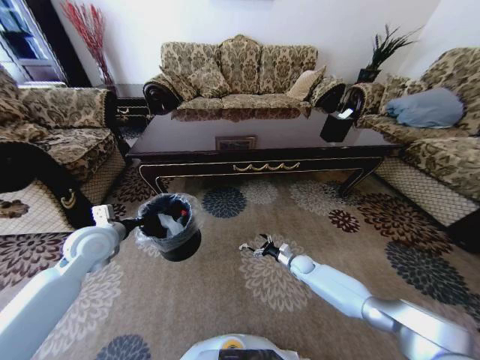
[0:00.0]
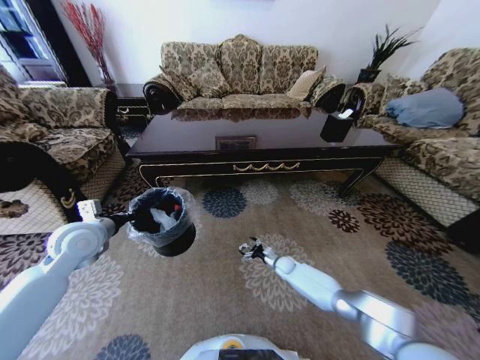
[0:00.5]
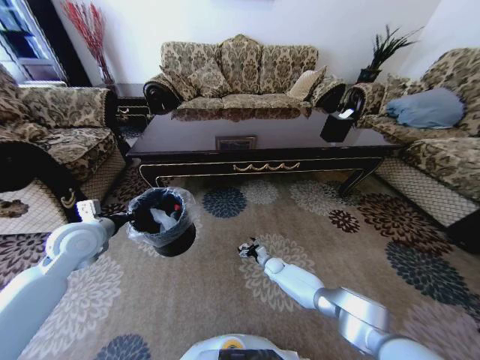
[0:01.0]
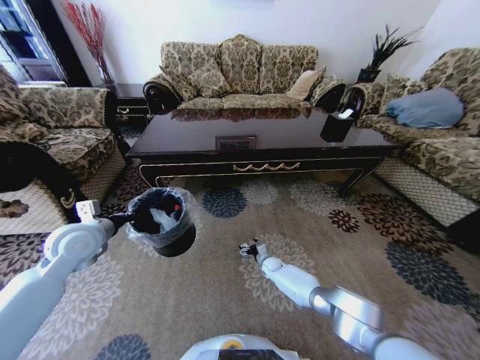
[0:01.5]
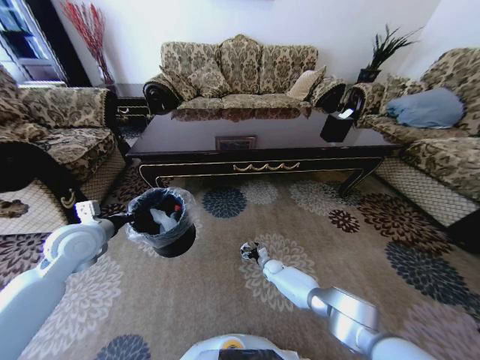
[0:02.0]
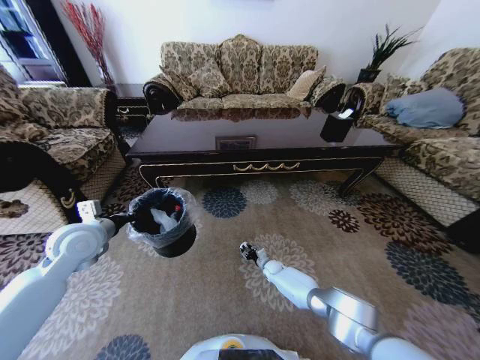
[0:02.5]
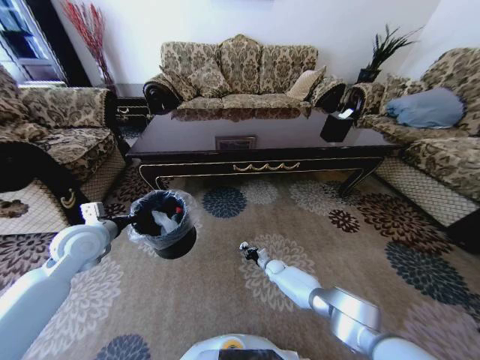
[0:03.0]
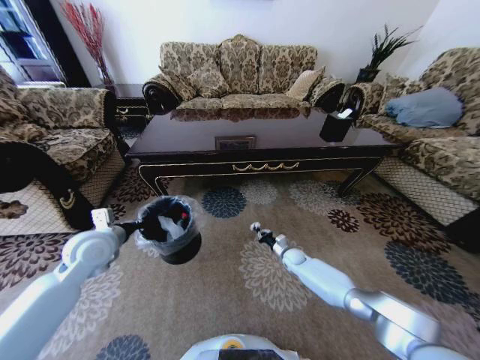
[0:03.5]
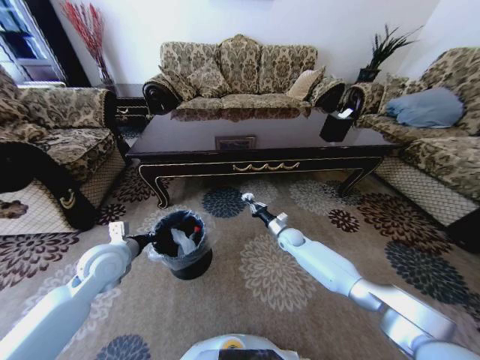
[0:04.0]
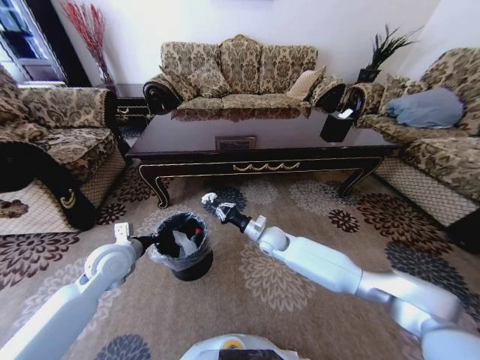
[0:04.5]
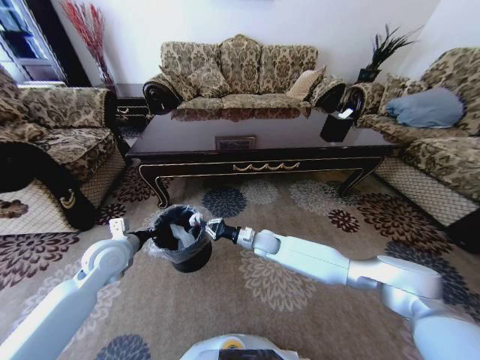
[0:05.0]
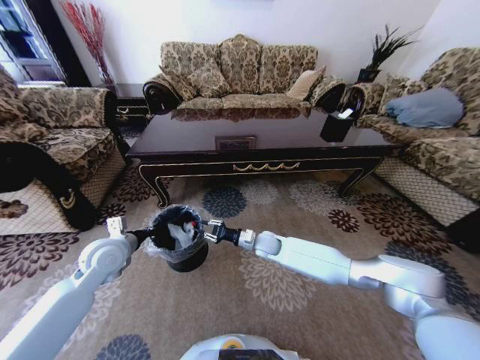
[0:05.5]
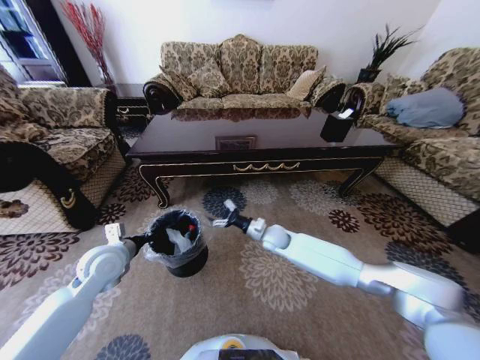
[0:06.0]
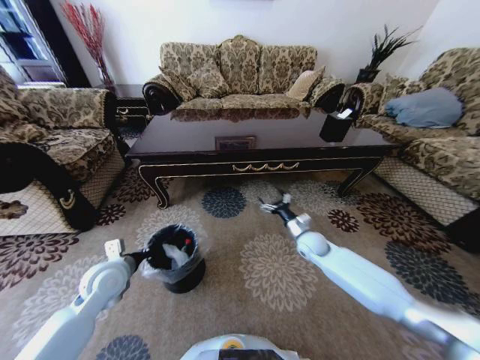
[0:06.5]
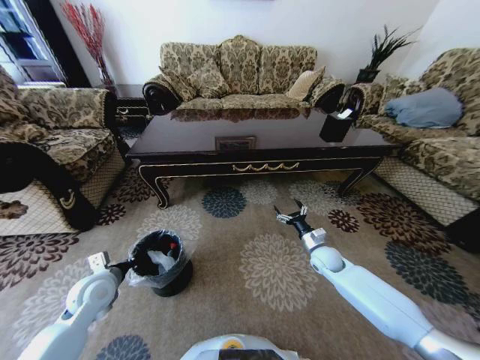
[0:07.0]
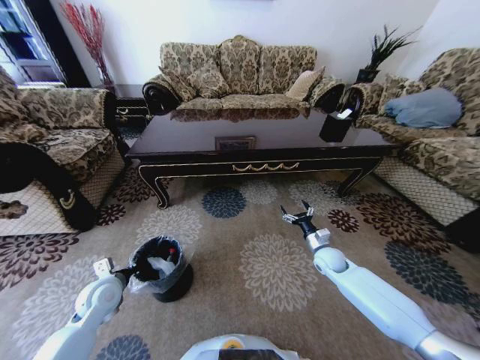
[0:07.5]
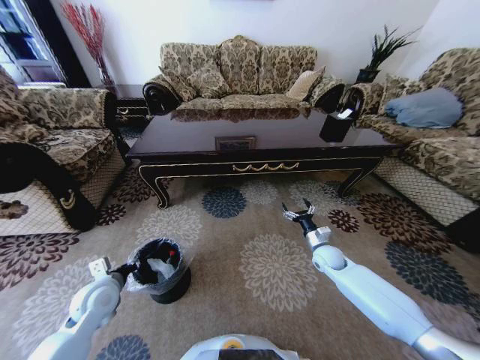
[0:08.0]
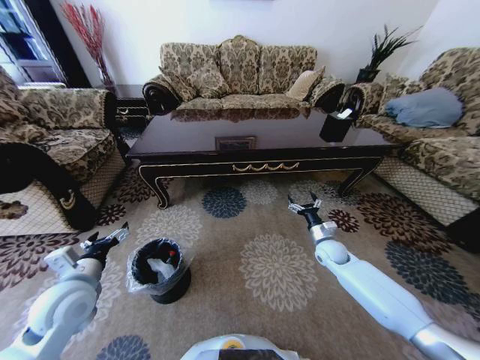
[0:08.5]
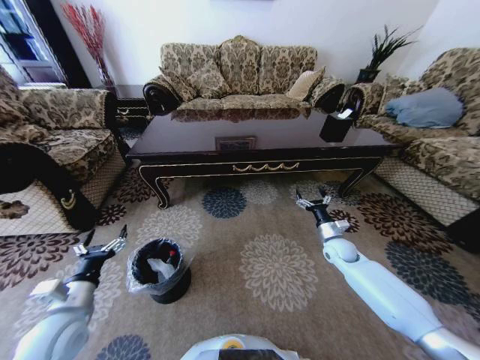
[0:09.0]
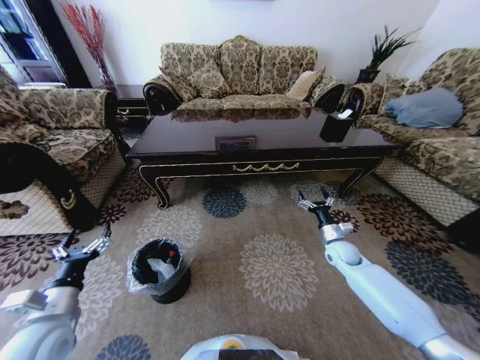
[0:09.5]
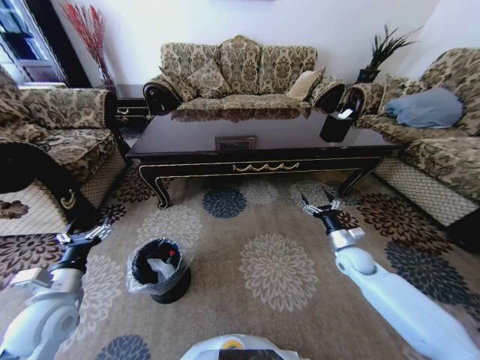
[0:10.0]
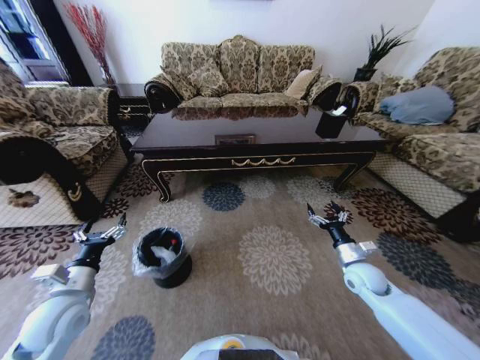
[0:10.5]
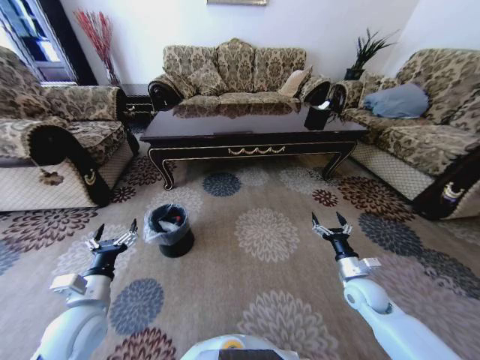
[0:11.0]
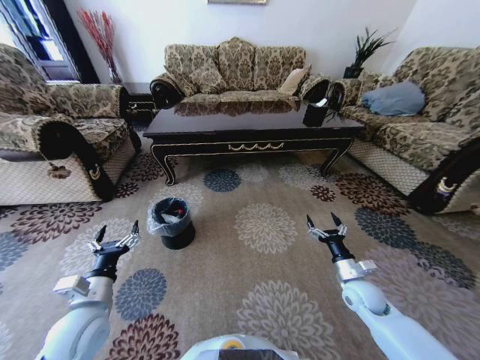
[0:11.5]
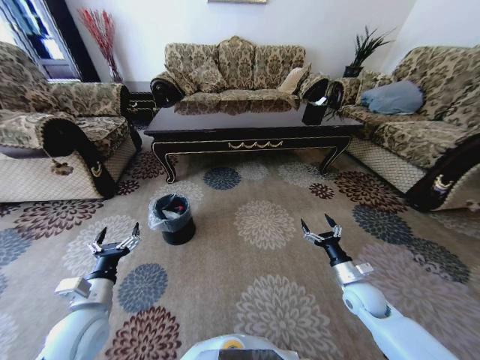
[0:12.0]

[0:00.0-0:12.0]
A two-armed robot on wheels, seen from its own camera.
Task of the whole recording: Move to the front of the table and pick up the trash from the floor, then place it into the trash bin.
0:00.0 to 0:02.0: The right gripper moves to the left and downward, approximately 15 cm.
0:02.0 to 0:04.0: The left gripper heads to the right and downward, covering approximately 5 cm, while the right gripper travels upward by approximately 20 cm, and closes its fingers.
0:04.0 to 0:06.0: The right gripper travels to the left and upward by some 10 cm, and opens.
0:06.0 to 0:08.0: The left gripper is displaced downward and backward by about 10 cm, and opens up, while the right gripper goes some 20 cm to the right.
0:08.0 to 0:10.0: The left gripper travels backward by roughly 5 cm, and opens. Meanwhile the right gripper goes roughly 5 cm to the right.
0:10.0 to 0:12.0: The right gripper travels backward by some 10 cm. The left gripper heads to the right, covering approximately 5 cm.

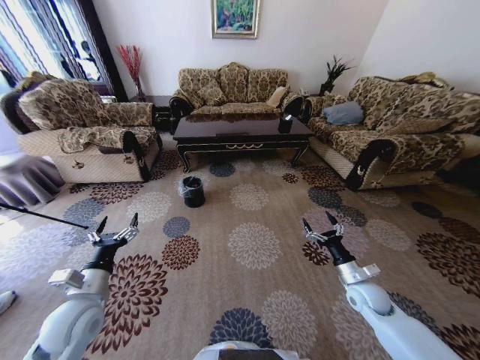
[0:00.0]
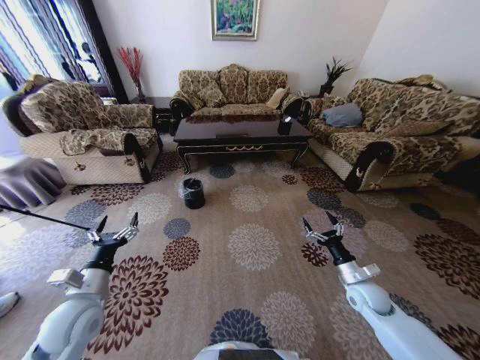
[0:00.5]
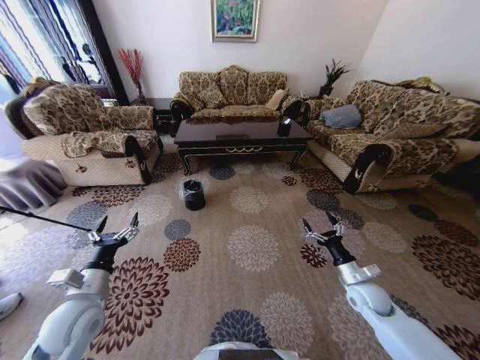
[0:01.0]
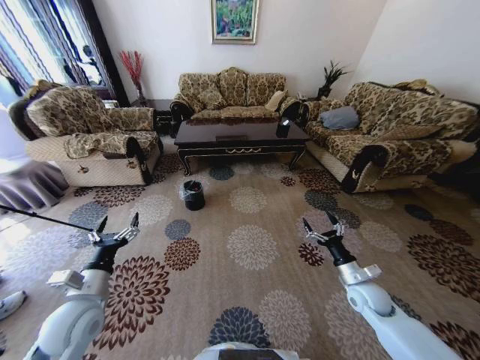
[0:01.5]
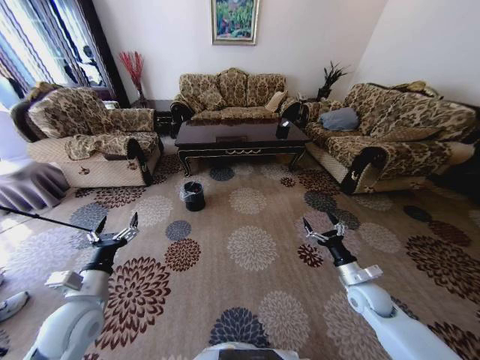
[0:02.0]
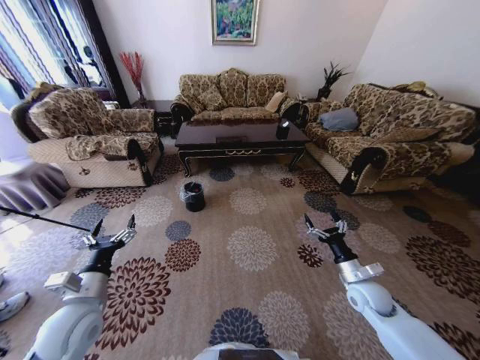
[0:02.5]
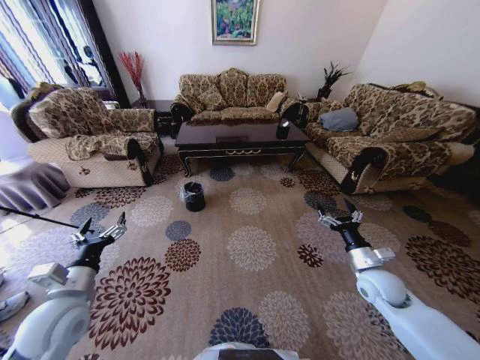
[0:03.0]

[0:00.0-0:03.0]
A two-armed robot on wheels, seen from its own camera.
Task of the whole recording: Move to the front of the table and pick up the trash from the floor, then place it into the trash bin.
0:01.5 to 0:03.0: The right gripper shifts roughly 5 cm upward.
